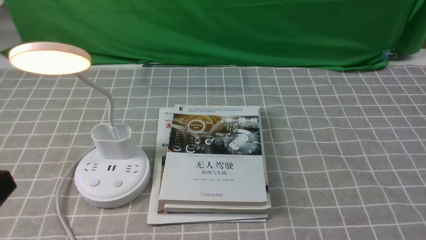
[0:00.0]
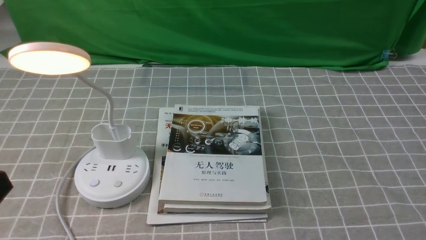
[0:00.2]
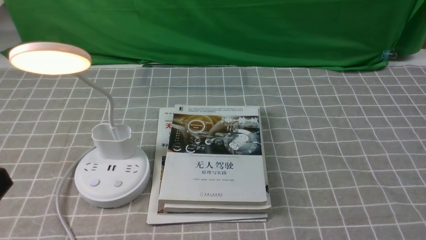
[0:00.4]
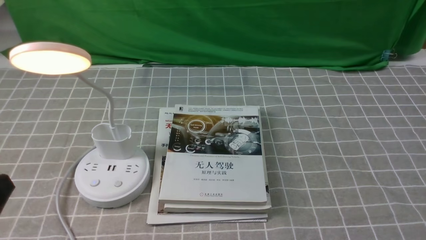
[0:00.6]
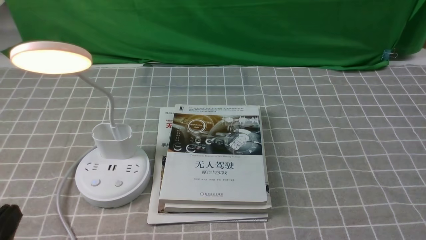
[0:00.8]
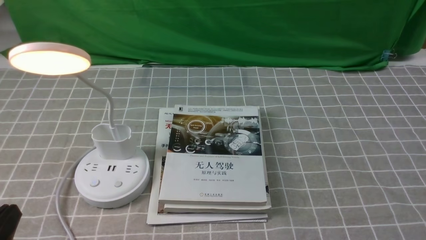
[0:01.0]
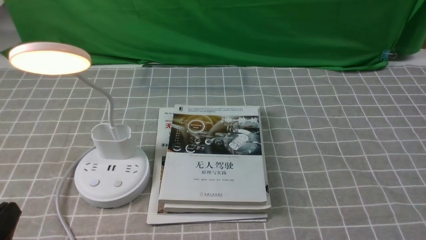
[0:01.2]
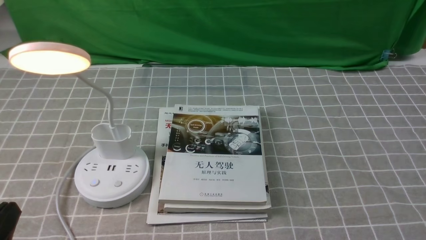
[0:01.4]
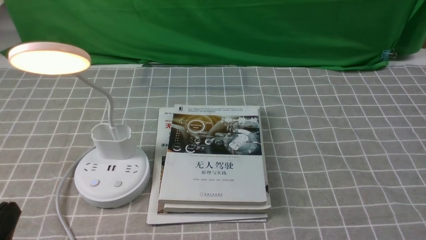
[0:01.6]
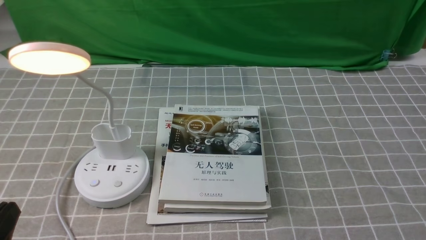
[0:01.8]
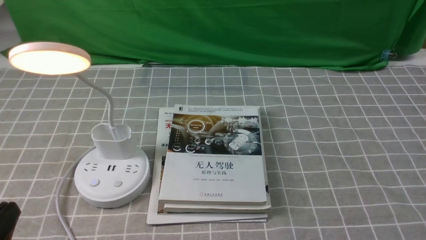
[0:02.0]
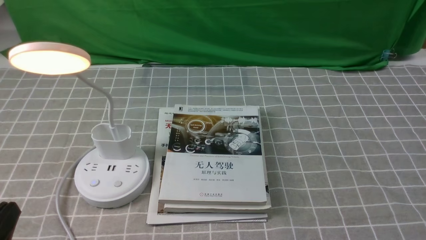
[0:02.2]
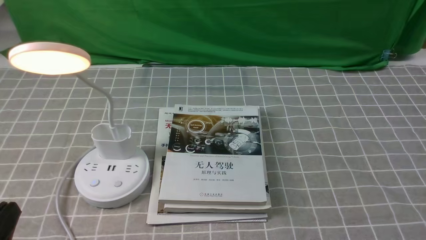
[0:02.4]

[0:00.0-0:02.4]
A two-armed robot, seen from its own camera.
0:00.0 to 0:01.2: The left gripper travels downward by approximately 10 cm.
